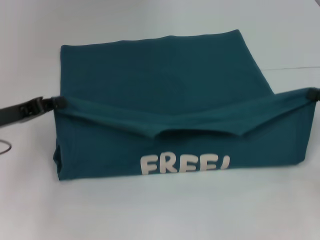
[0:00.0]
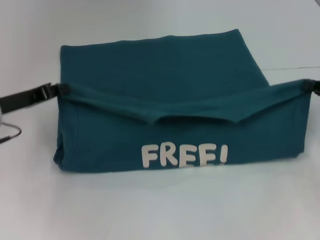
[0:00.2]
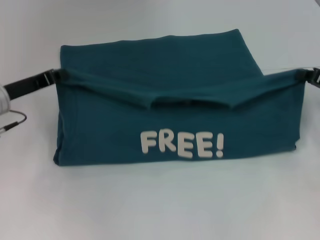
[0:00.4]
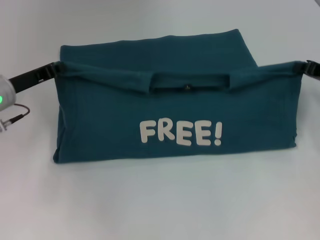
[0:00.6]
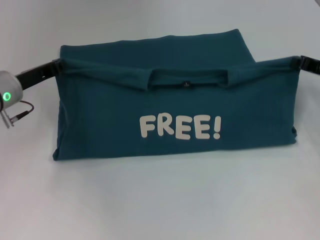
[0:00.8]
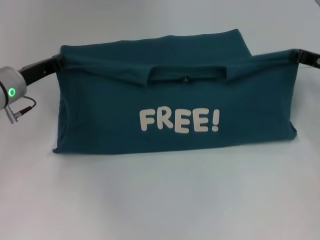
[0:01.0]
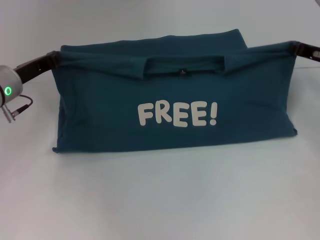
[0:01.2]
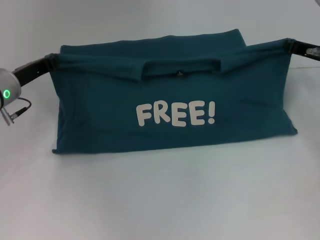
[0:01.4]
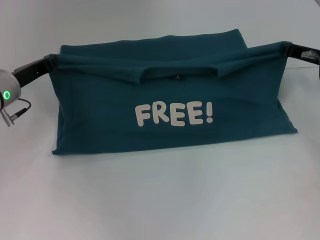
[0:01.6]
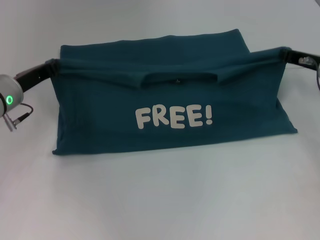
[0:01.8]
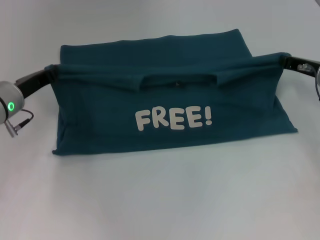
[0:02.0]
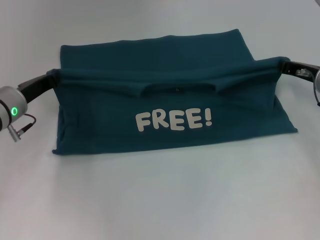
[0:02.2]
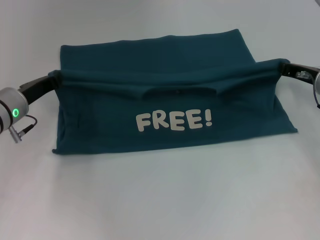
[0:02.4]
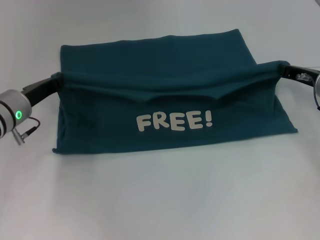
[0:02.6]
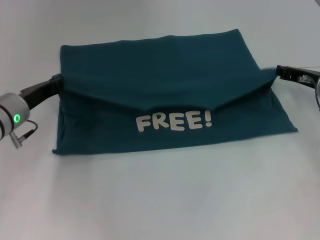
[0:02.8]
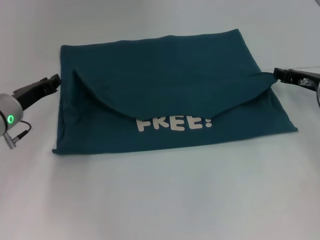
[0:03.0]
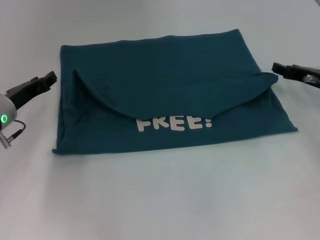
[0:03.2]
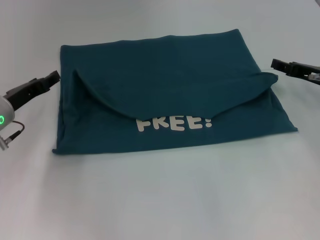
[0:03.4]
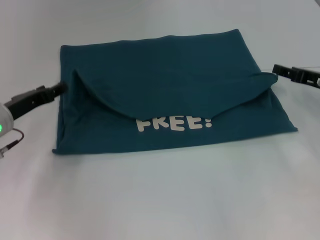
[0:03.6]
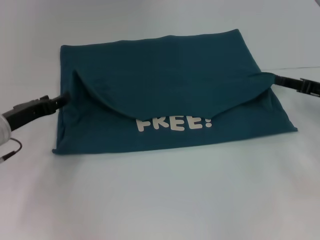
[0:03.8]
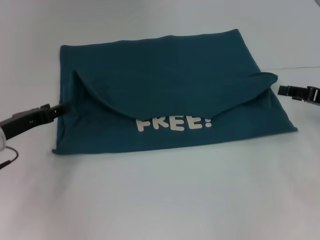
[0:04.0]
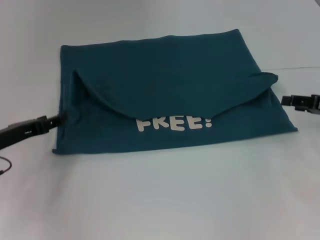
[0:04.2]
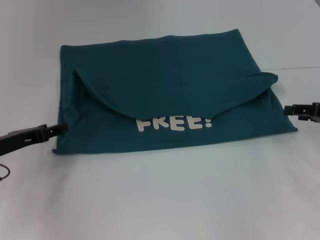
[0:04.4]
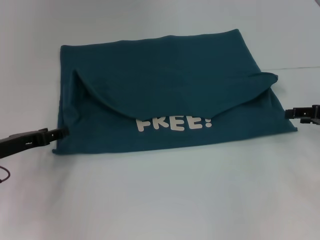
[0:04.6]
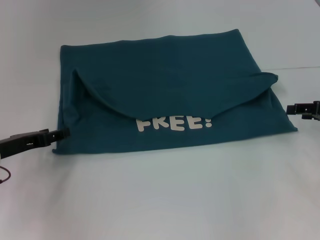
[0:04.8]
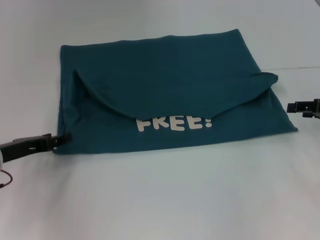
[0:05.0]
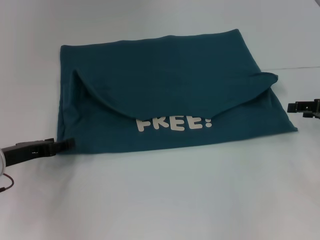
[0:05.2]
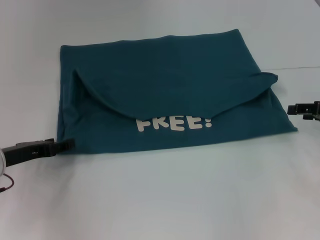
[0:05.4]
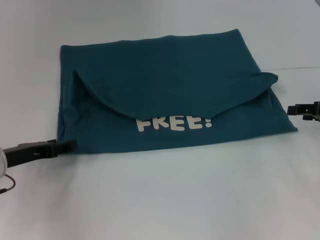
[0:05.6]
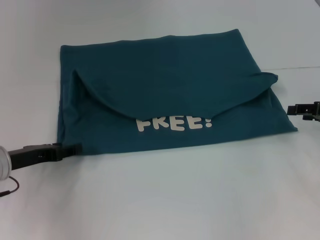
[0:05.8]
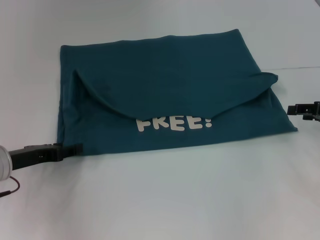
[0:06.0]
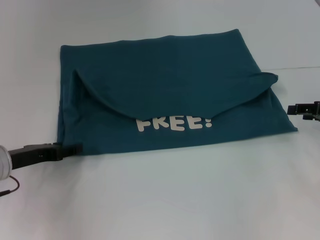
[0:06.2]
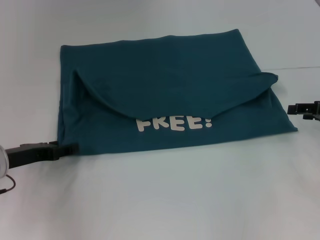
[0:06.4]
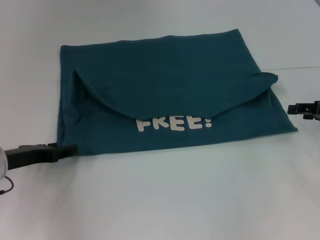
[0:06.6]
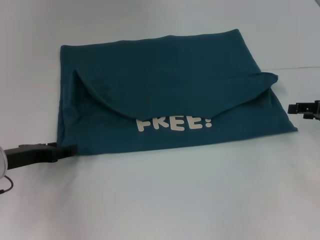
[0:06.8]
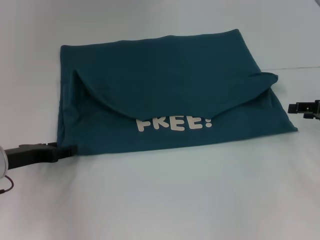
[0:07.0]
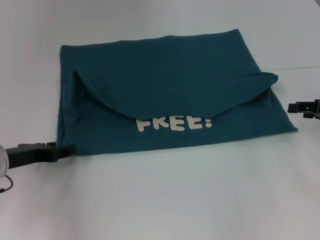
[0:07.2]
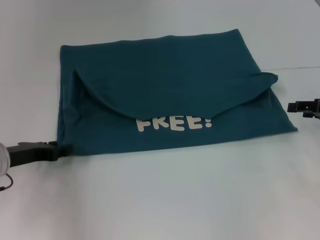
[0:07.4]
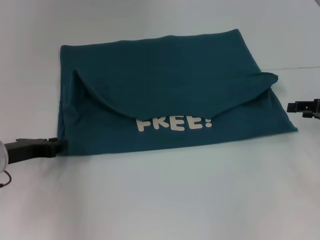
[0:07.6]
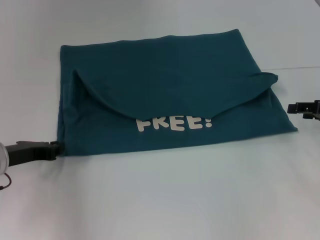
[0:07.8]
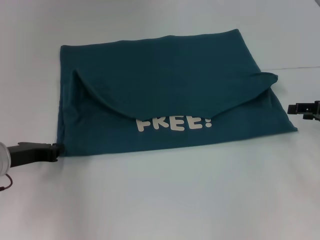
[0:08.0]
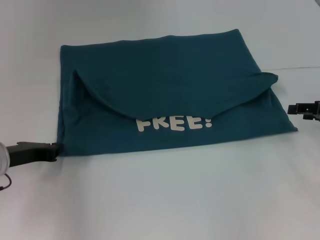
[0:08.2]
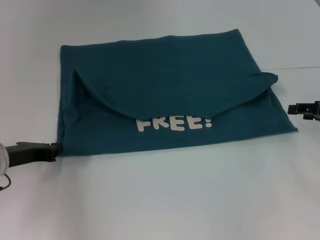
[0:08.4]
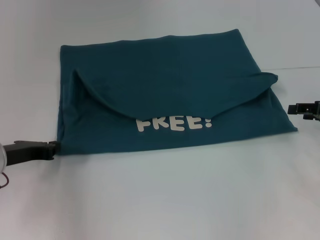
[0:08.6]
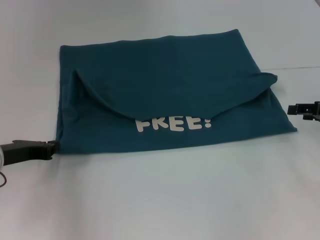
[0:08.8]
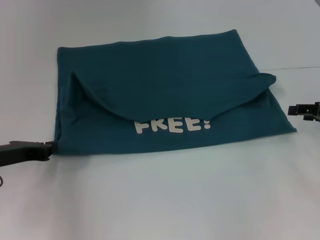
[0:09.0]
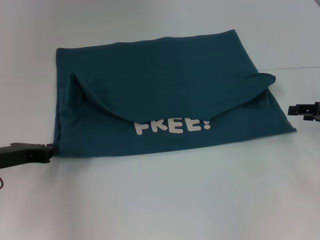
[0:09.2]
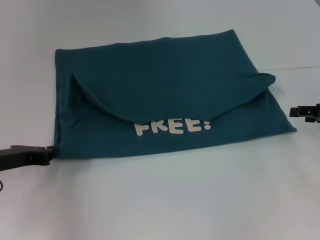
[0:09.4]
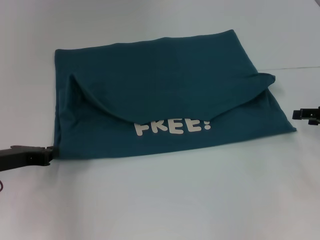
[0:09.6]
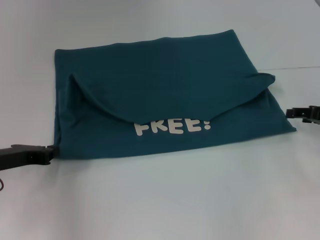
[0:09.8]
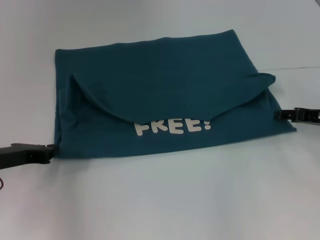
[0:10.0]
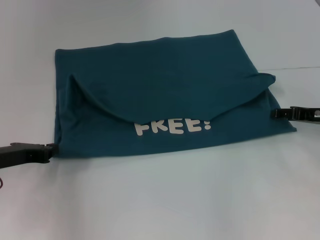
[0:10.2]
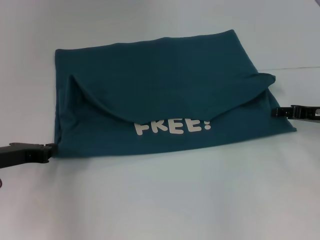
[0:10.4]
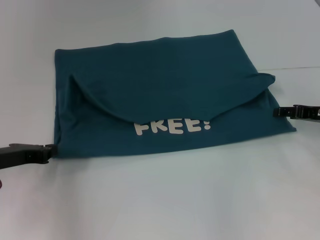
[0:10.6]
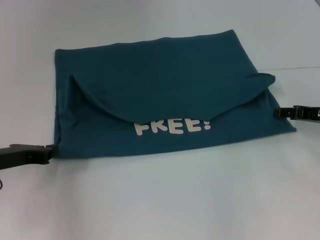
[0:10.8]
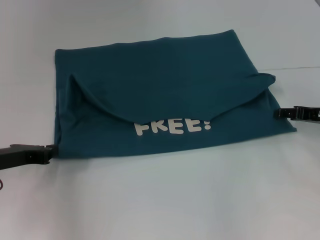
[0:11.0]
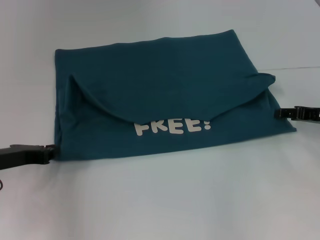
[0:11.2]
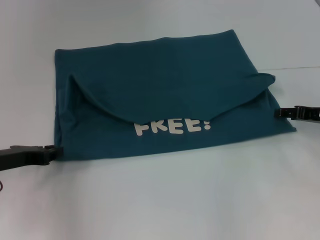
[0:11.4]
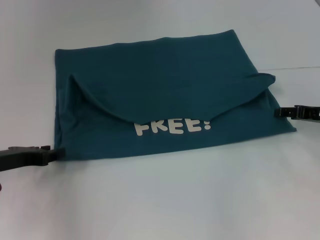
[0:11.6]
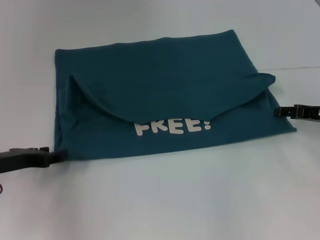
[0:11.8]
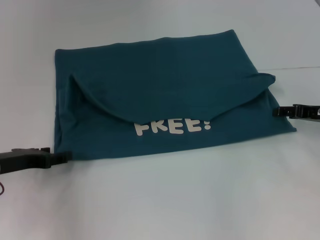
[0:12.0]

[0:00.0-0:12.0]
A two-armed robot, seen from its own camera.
Step, 0:00.0 to 0:03.0: Fold the clothes to the left.
Step, 0:00.0 to 0:03.0: Fold the clothes to the right.
0:00.0 to 0:01.6: The left gripper shifts some 5 cm forward. The right gripper travels forward and to the left by some 15 cm.
0:01.6 to 0:03.0: The grippers make only small movements.
0:03.0 to 0:04.4: The right gripper is displaced backward and to the right by approximately 10 cm, and opens. Meanwhile the left gripper shifts roughly 5 cm backward, and opens.
0:04.4 to 0:07.6: The grippers move only a little.
0:07.6 to 0:09.0: The left gripper closes its fingers.
0:09.0 to 0:10.4: There are only small adjustments of the grippers.
0:10.4 to 0:12.0: The left gripper opens its fingers.

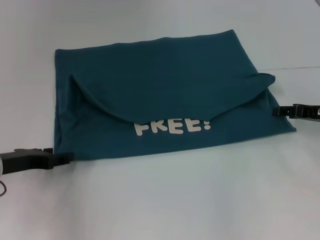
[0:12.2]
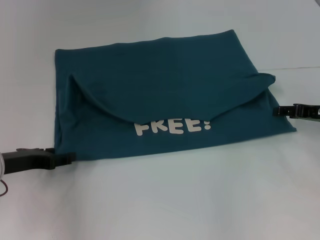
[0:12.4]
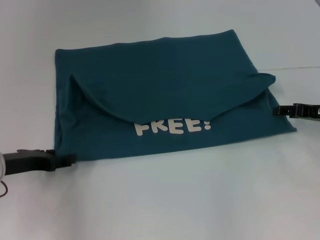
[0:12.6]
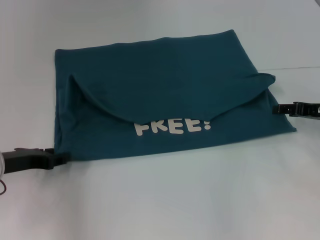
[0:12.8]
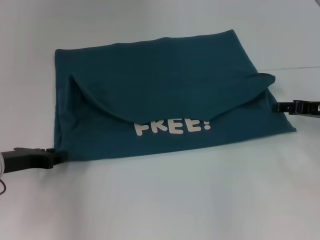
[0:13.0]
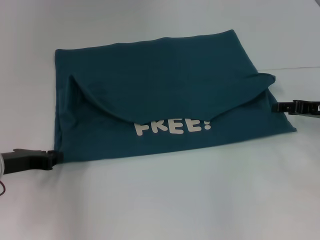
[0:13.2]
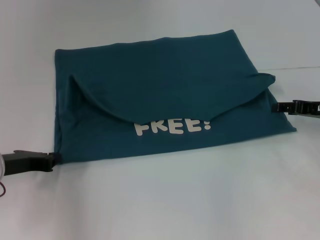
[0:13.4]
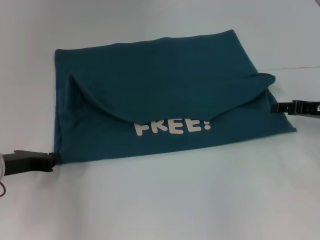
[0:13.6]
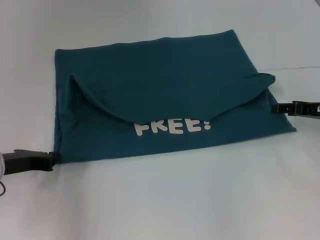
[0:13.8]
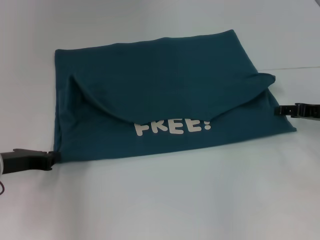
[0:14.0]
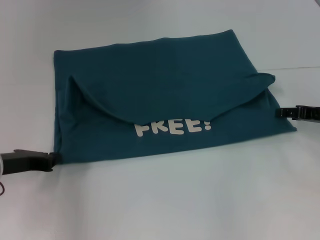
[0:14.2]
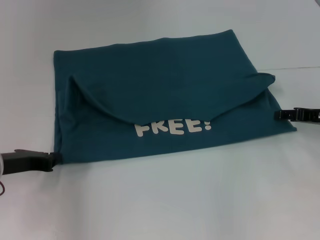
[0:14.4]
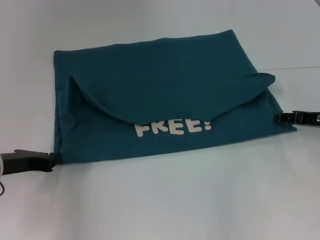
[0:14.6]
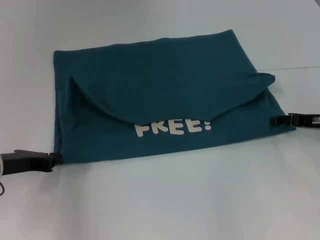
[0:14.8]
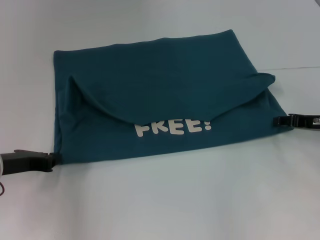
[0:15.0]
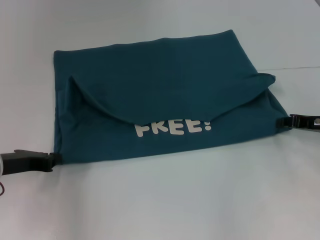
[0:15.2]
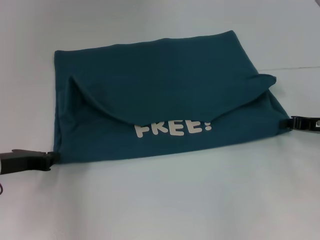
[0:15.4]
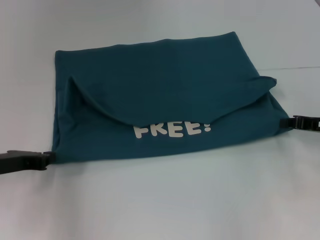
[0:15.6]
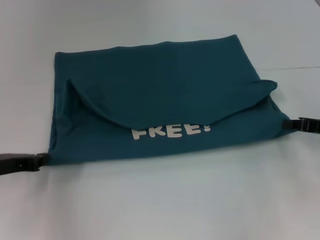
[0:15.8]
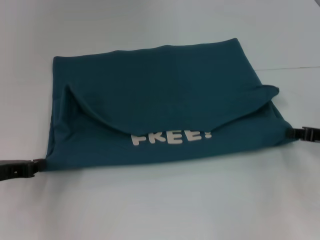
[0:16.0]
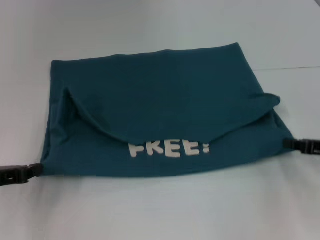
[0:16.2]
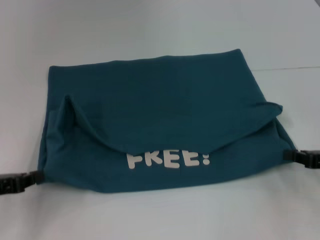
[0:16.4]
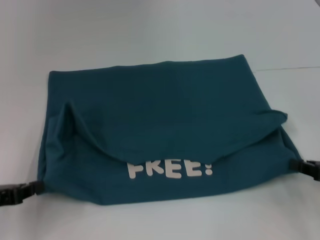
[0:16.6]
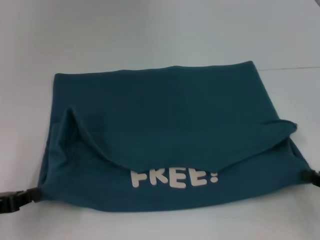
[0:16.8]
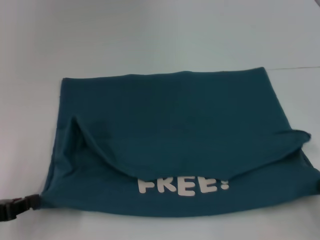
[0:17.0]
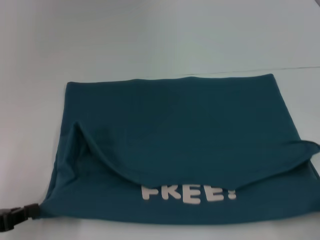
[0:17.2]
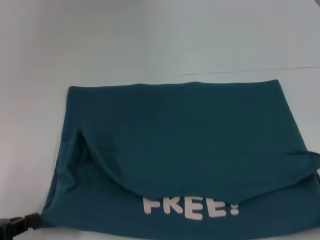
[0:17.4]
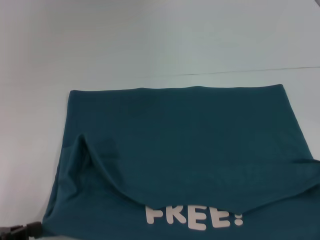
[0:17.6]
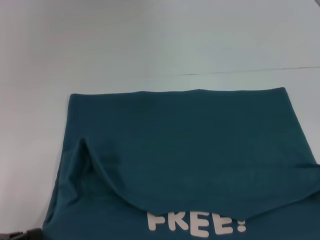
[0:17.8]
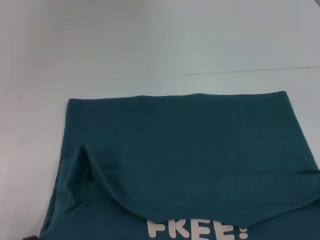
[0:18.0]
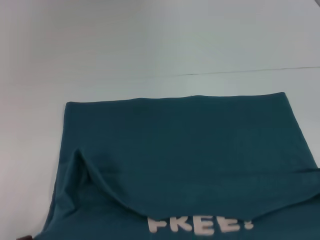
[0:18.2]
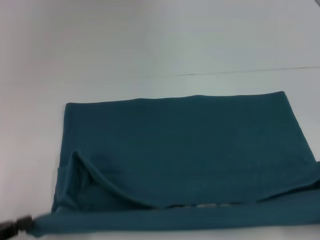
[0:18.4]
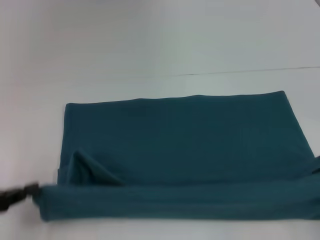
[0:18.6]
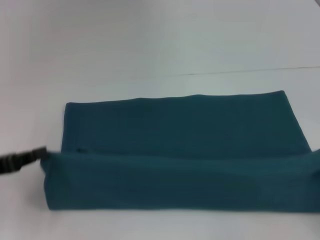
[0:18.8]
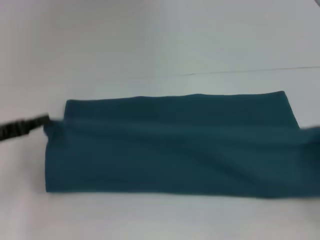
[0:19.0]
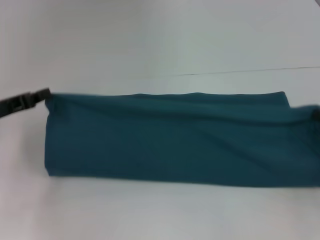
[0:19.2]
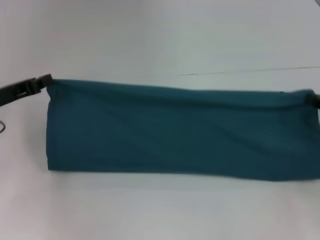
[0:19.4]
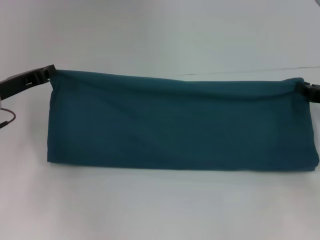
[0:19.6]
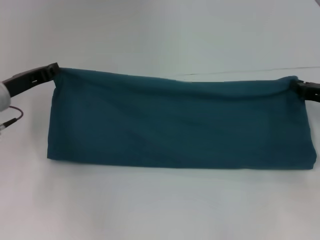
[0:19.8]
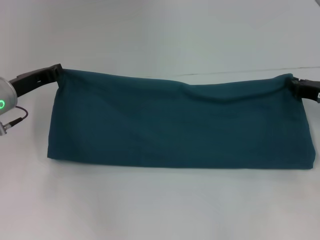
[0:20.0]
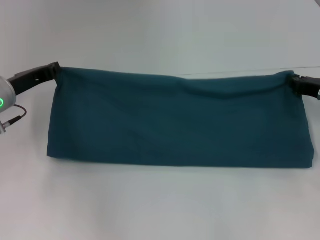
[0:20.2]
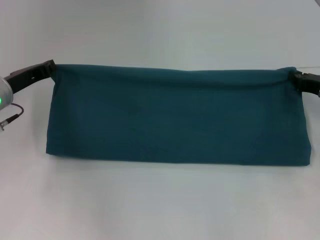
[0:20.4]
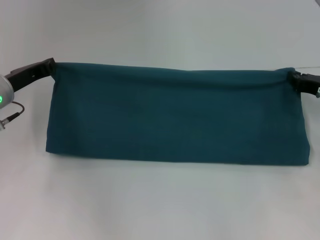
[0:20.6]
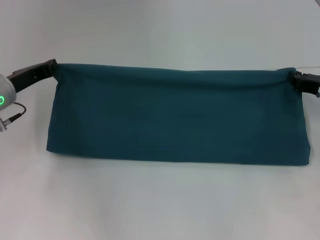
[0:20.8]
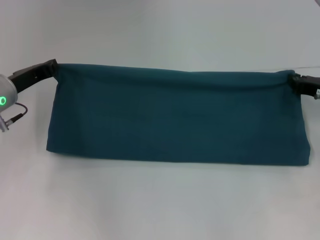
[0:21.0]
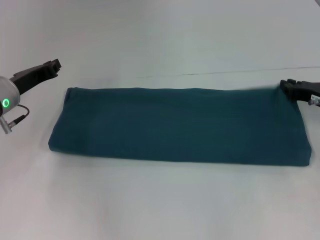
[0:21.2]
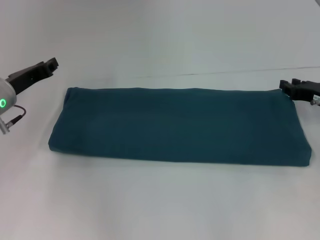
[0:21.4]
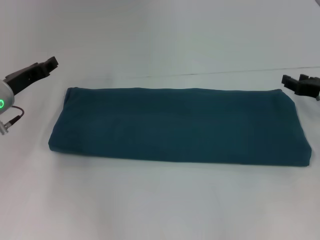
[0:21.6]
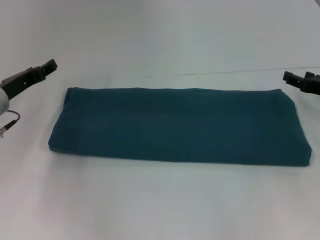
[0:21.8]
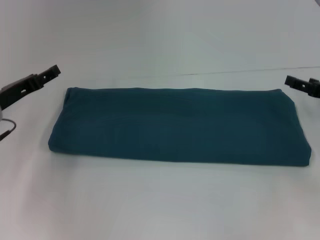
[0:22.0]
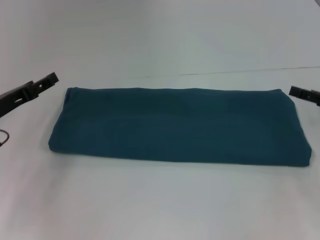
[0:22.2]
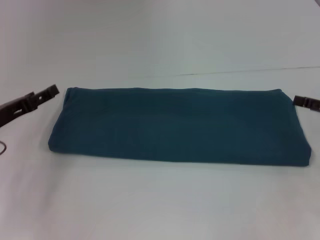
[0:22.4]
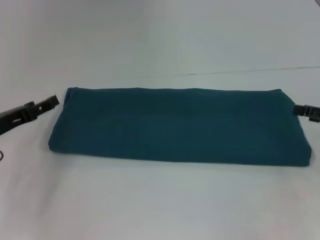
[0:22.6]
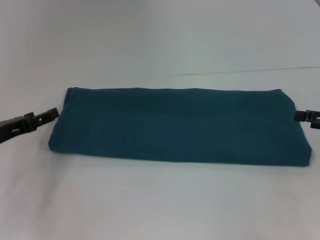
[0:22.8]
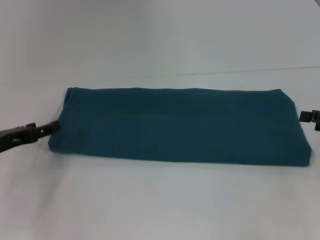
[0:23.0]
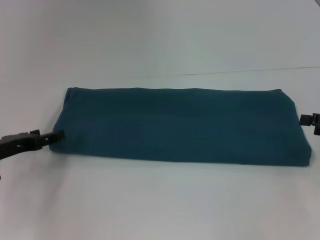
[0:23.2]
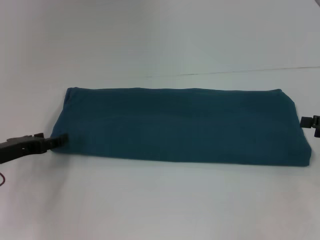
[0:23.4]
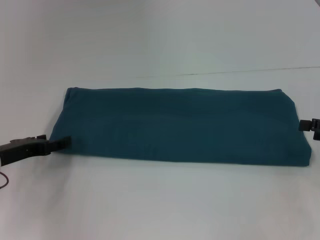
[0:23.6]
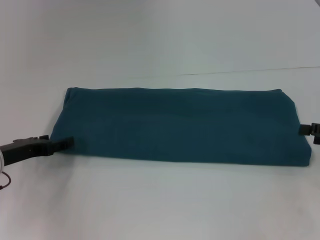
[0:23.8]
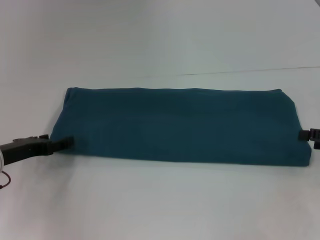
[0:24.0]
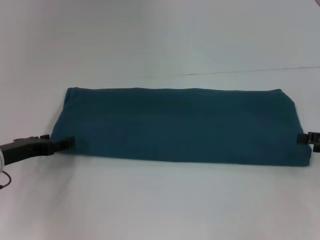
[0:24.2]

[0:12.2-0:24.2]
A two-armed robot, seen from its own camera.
Step, 0:12.2 to 0:17.8: Pull the clothes with your left hand.
Step, 0:12.2 to 0:17.8: Pull the clothes with your right hand.
Step, 0:18.0 to 0:21.6: Fold the clothes to the right.
0:12.2 to 0:13.8: The left gripper closes.
0:13.8 to 0:15.2: The grippers stay close to where they were, moving slightly.
0:15.2 to 0:16.6: The two grippers go some 10 cm backward. The right gripper closes up.
0:16.6 to 0:18.2: The left gripper goes approximately 10 cm backward; the right gripper moves backward, some 15 cm.
0:18.2 to 0:19.8: The grippers both shift forward by about 25 cm.
0:19.8 to 0:21.2: The grippers make only small movements.
0:21.2 to 0:22.6: The left gripper goes some 5 cm backward, and opens up; the right gripper goes approximately 10 cm backward and to the right, and opens its fingers.
0:22.6 to 0:24.2: There are only small adjustments of the grippers.
